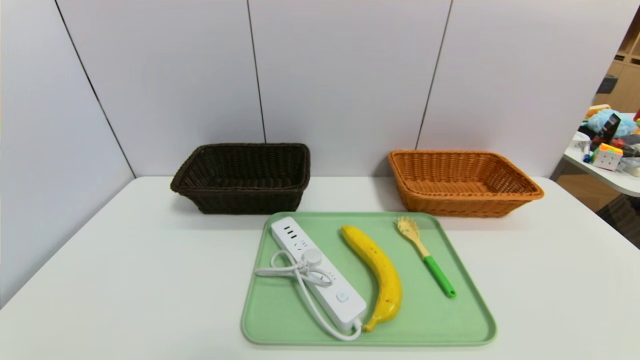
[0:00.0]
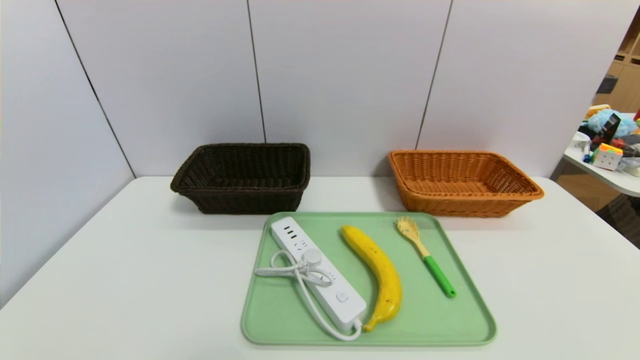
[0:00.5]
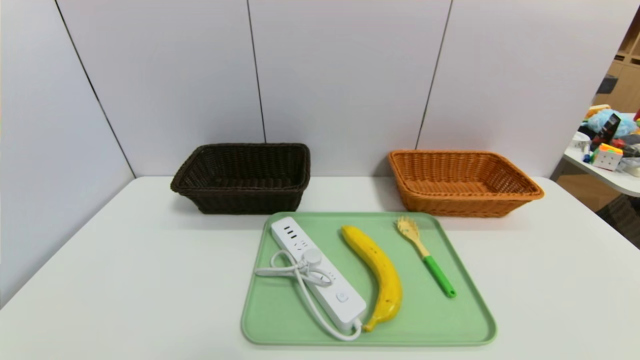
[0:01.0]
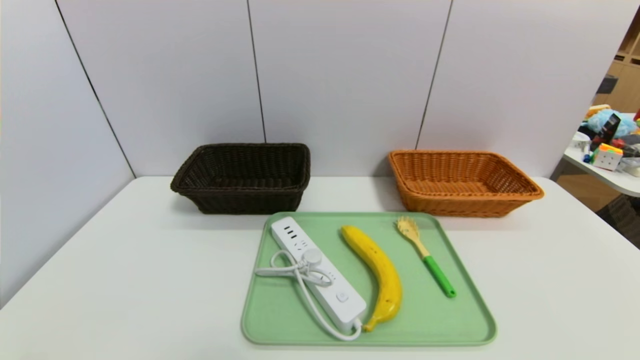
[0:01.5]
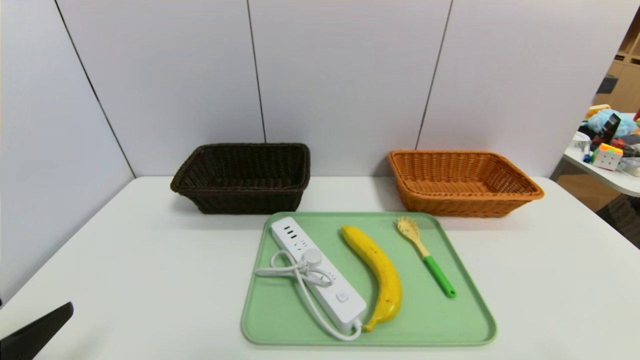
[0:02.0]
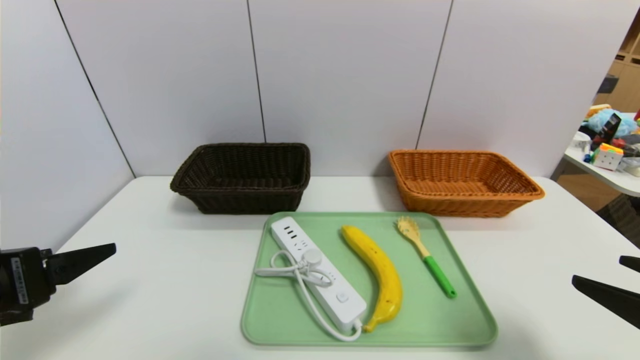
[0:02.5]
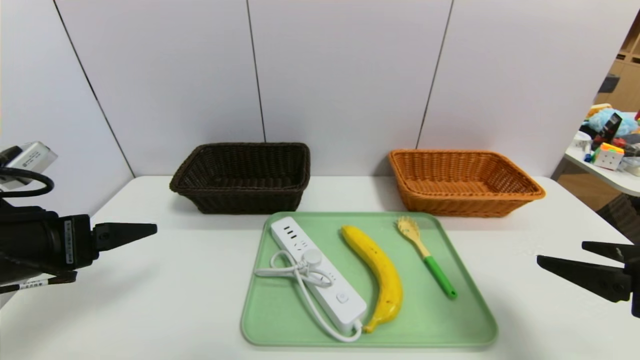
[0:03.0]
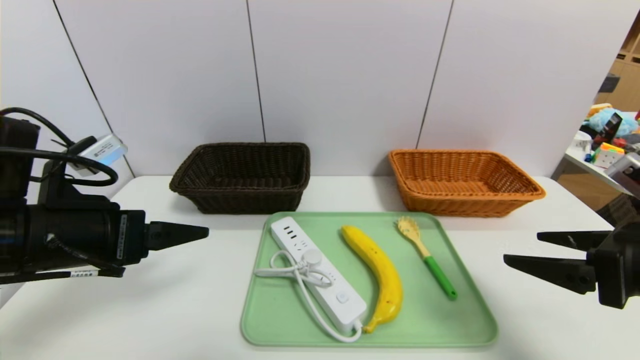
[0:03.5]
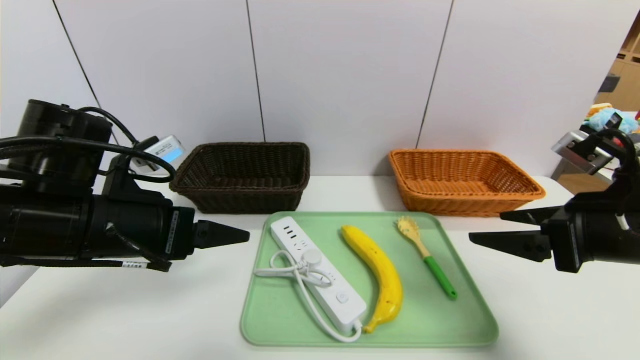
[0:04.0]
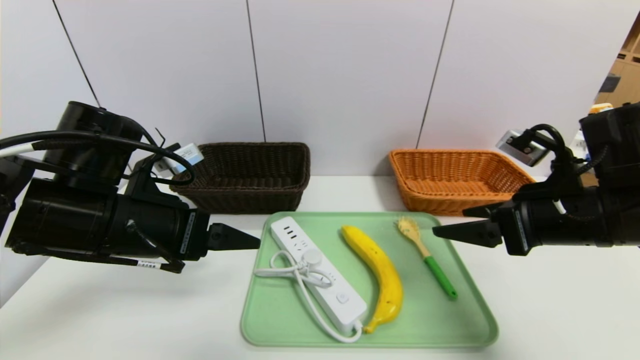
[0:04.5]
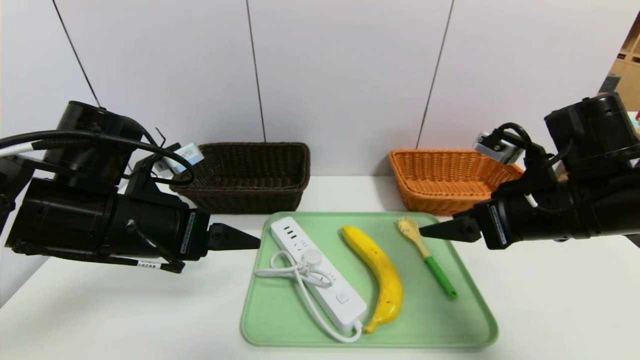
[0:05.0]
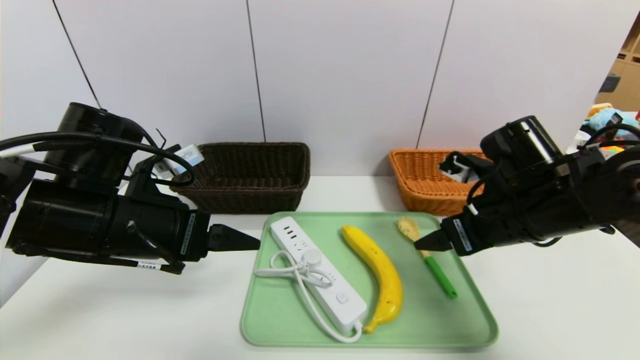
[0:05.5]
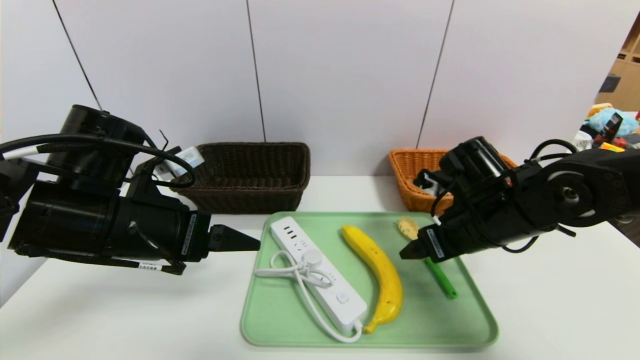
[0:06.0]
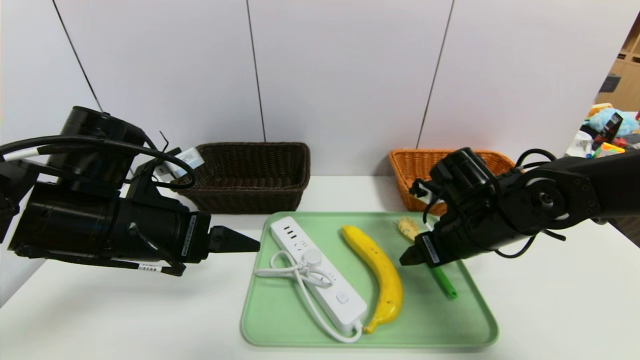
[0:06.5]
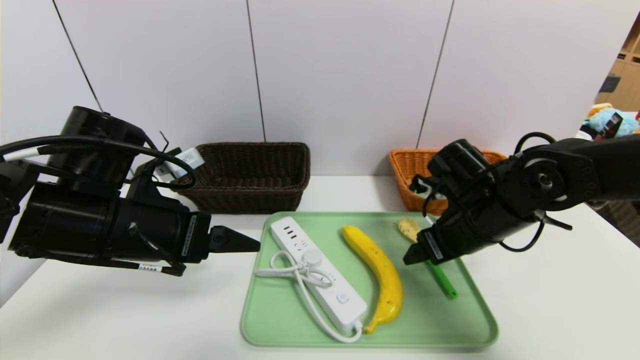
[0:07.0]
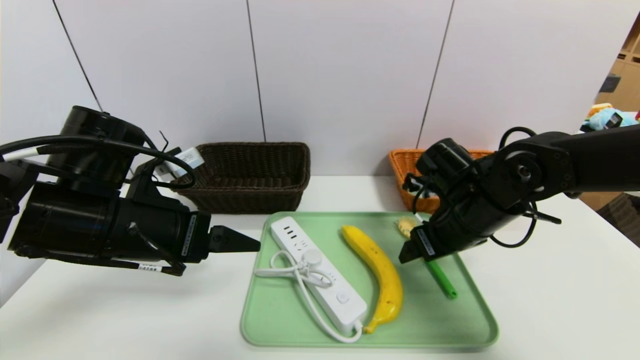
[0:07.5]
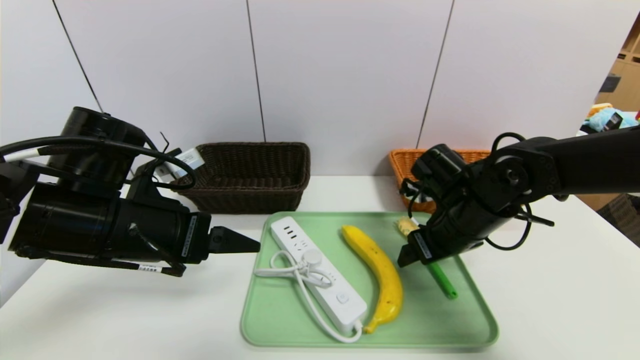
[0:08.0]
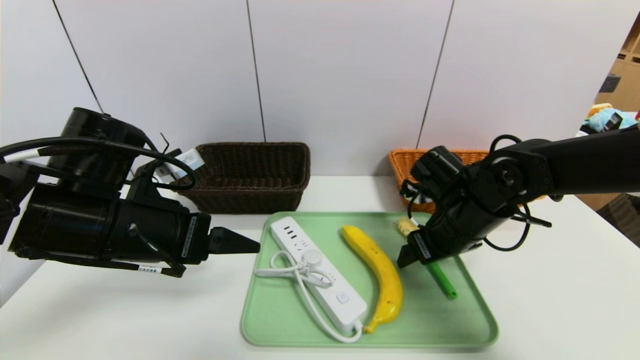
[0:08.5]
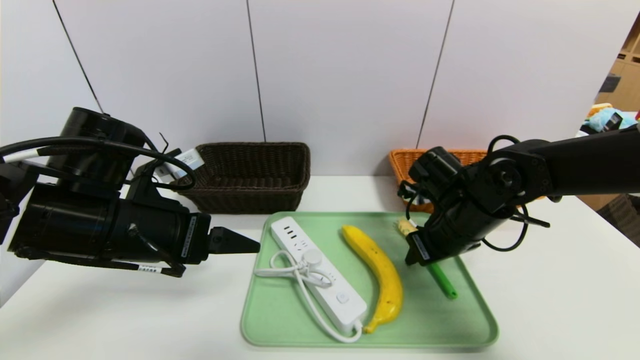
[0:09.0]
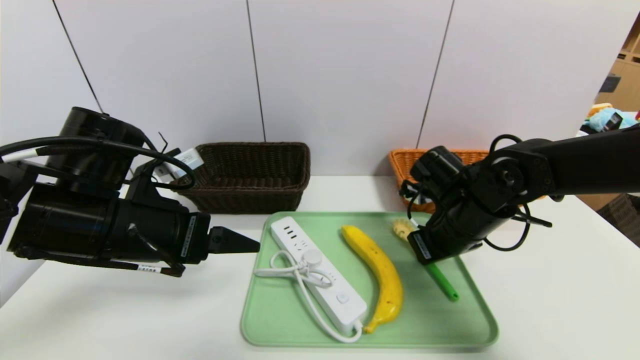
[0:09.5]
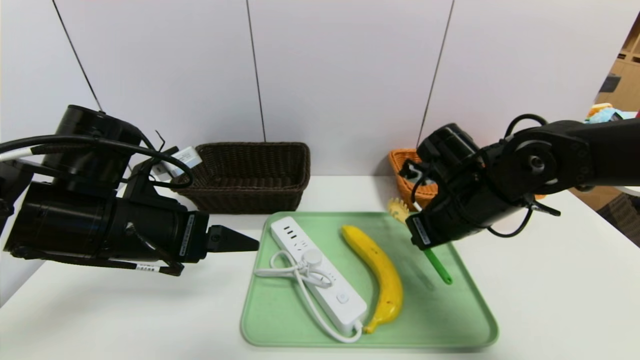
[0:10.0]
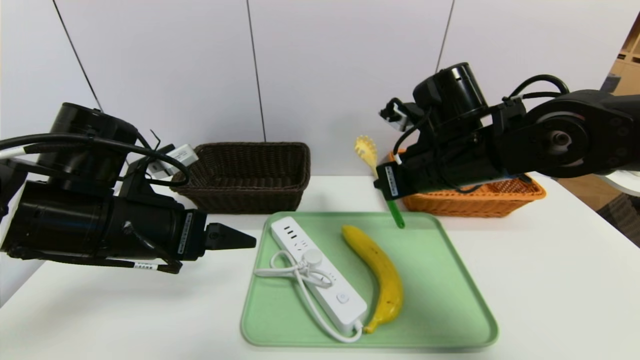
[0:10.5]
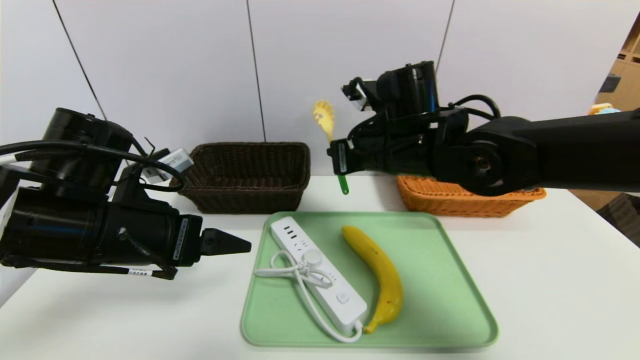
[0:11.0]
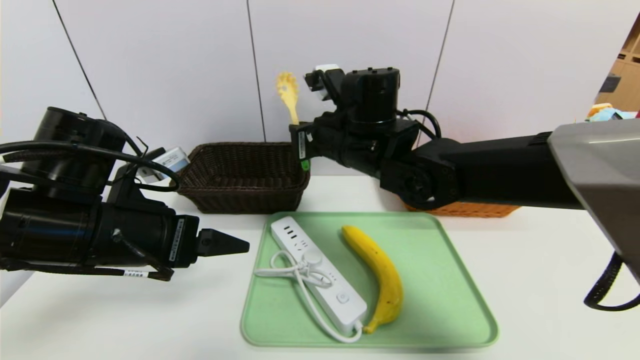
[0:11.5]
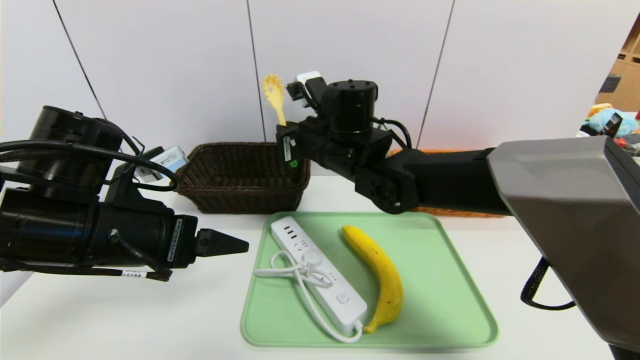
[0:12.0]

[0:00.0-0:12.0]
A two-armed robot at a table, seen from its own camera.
Task of the whole recording: place the food in the right basket with the right gripper, and place the non food items in the left basket with the left gripper.
0:00.0 to 0:02.0: The left gripper moves upward and forward, some 15 cm.
0:02.0 to 0:04.0: The left gripper goes approximately 20 cm forward and to the right. Meanwhile the right gripper heads forward, covering roughly 20 cm.
0:04.0 to 0:06.0: The right gripper travels forward, to the left and downward by about 15 cm.
0:06.0 to 0:08.0: The grippers stay close to where they were, moving slightly.
0:08.0 to 0:10.0: The right gripper closes up.
0:10.0 to 0:12.0: The right gripper is displaced to the left and forward by some 20 cm.

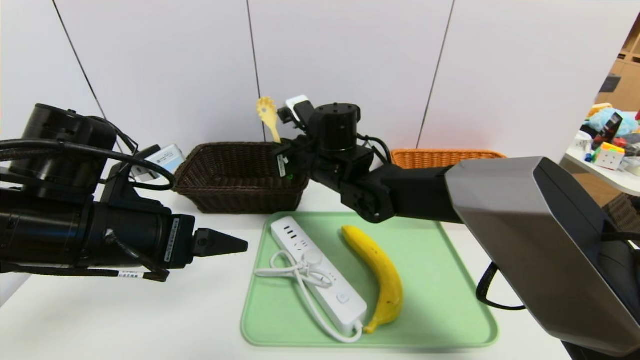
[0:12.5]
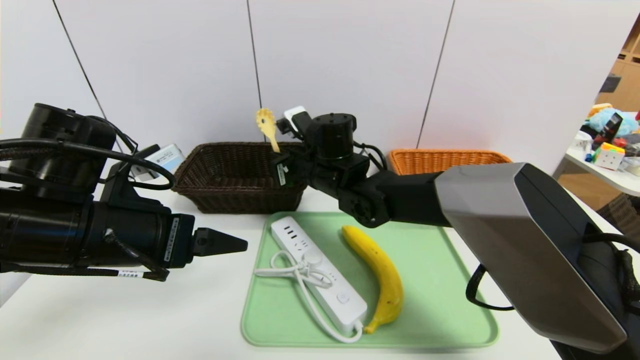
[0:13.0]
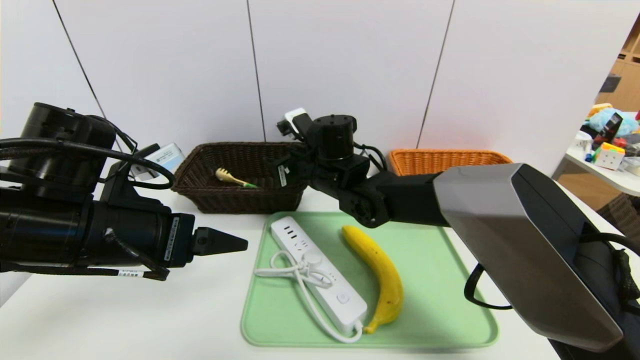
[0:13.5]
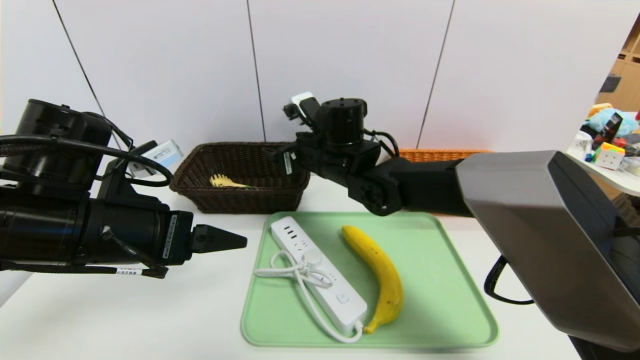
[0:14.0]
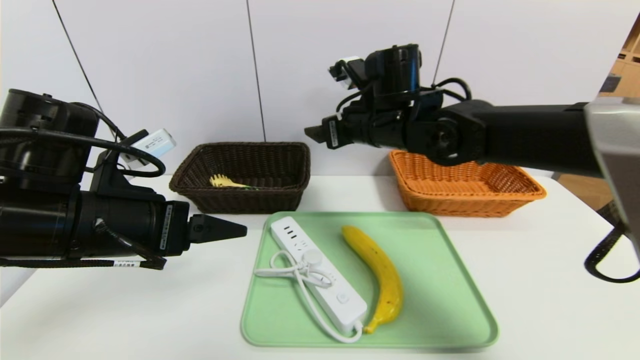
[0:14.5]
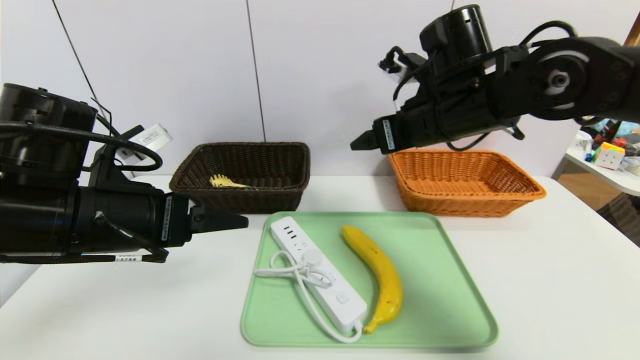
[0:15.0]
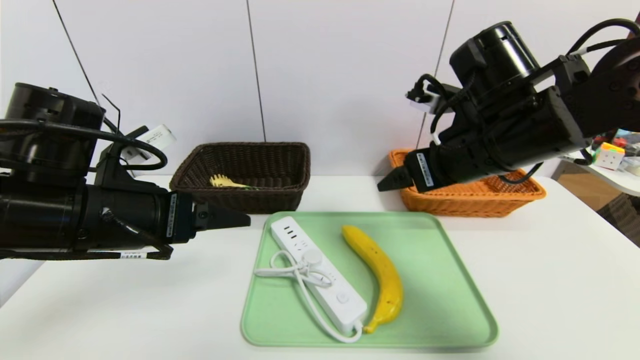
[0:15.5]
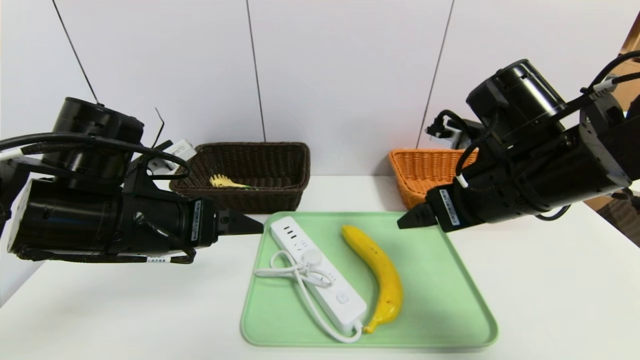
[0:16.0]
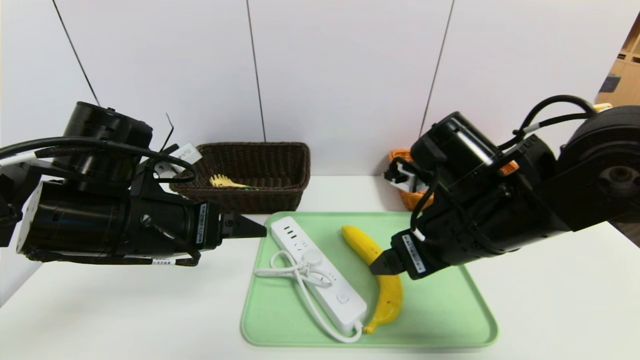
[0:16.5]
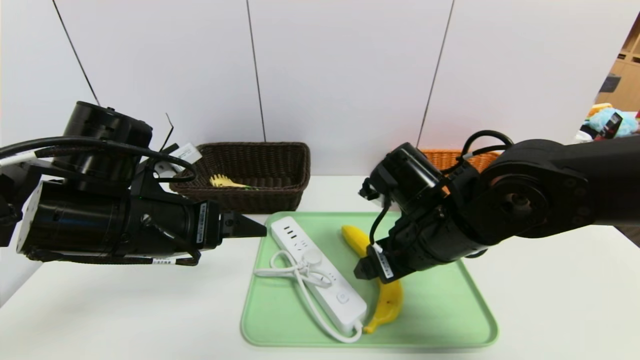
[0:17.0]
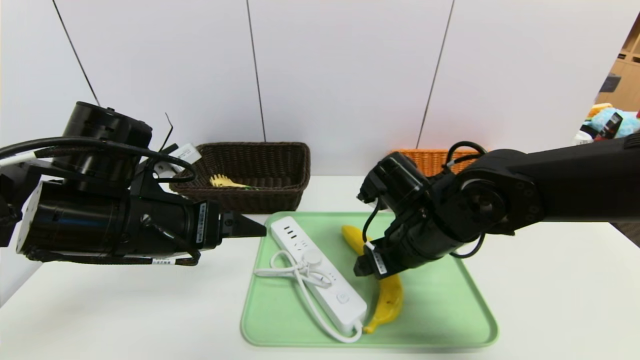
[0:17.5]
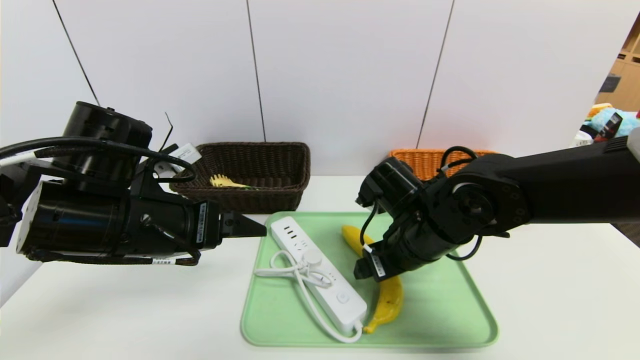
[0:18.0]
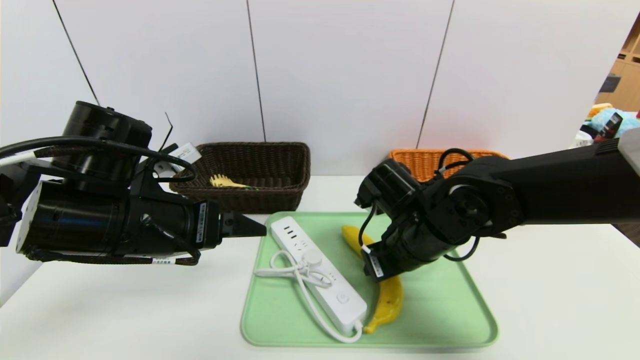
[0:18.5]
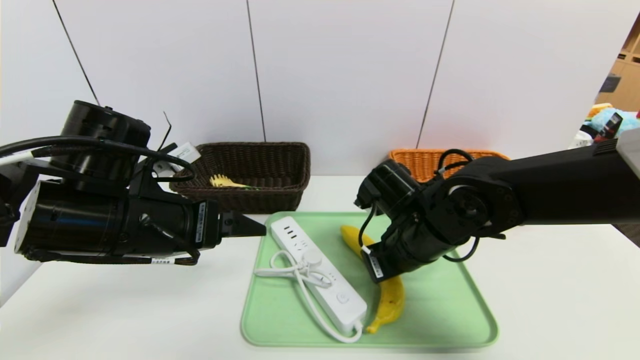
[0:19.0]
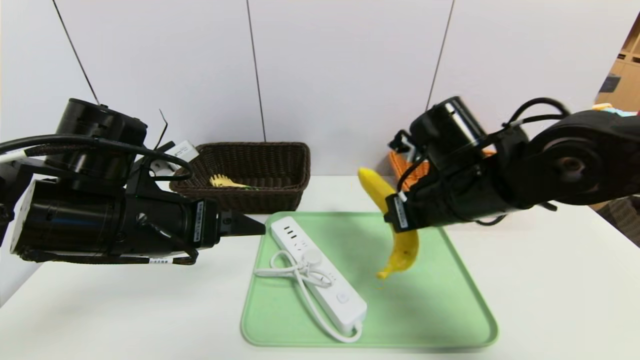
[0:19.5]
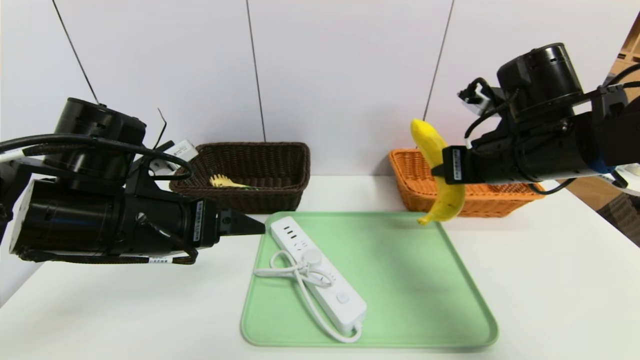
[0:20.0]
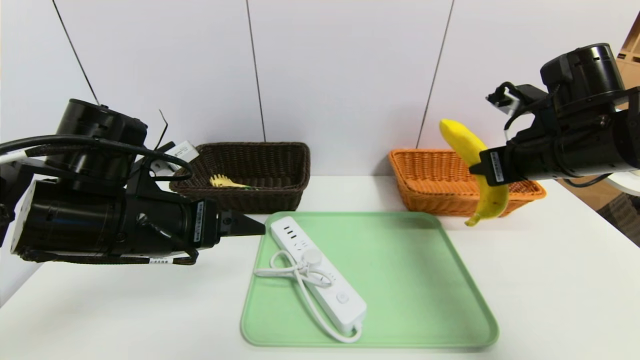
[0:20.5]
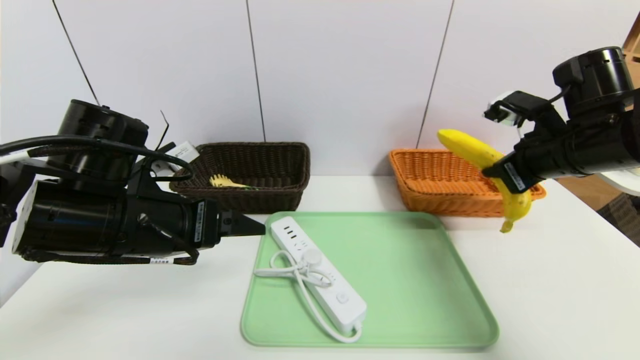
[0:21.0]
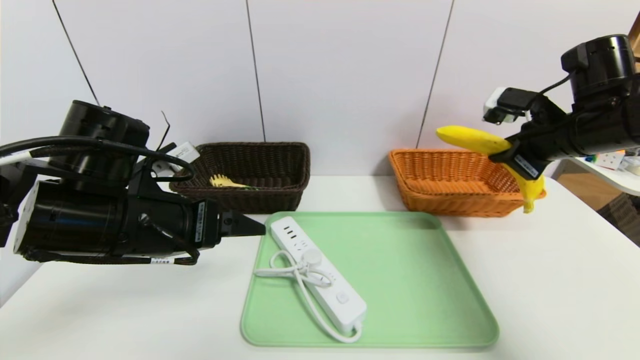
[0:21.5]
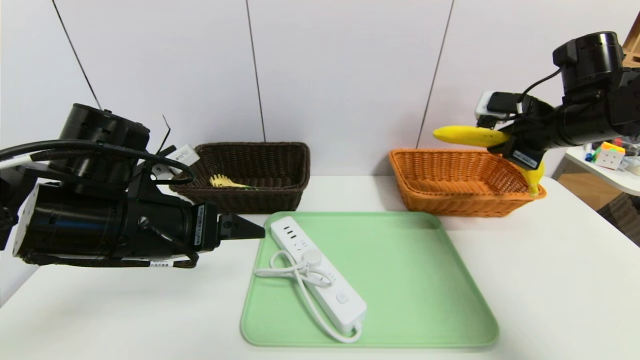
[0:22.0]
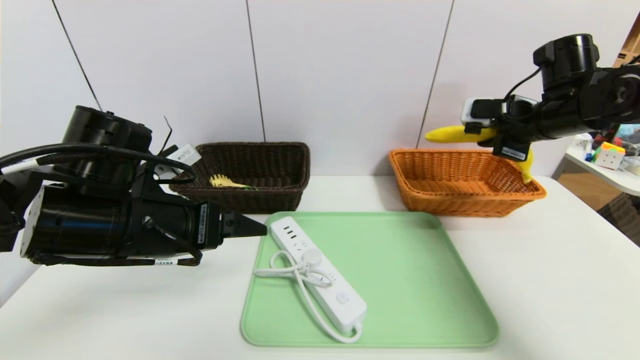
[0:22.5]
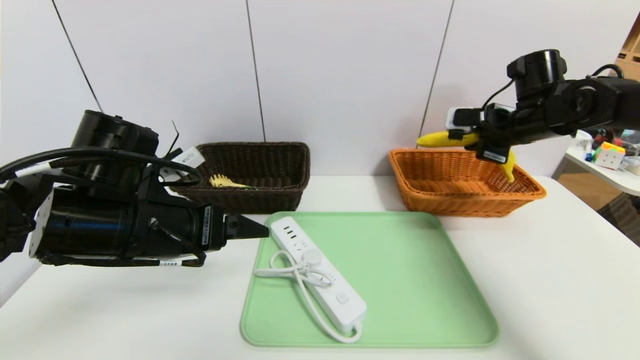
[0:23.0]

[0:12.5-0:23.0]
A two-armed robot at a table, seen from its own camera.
Task of the whole recording: place the food in the right basket with the right gripper, and place the non food items in the left basket with the left gripper.
0:12.5 to 0:14.5: The right gripper heads to the right and upward, covering some 10 cm, and opens.
0:14.5 to 0:16.5: The right gripper is displaced backward and to the right by about 15 cm.
0:16.5 to 0:19.0: The right gripper travels downward by about 5 cm, and closes.
0:19.0 to 0:21.0: The right gripper goes approximately 20 cm to the right and upward.
0:21.0 to 0:23.0: The right gripper goes about 10 cm forward.
